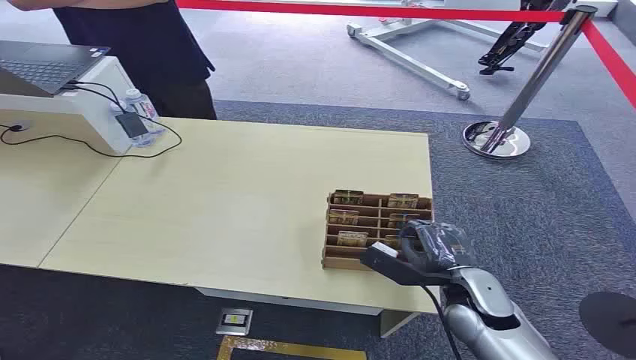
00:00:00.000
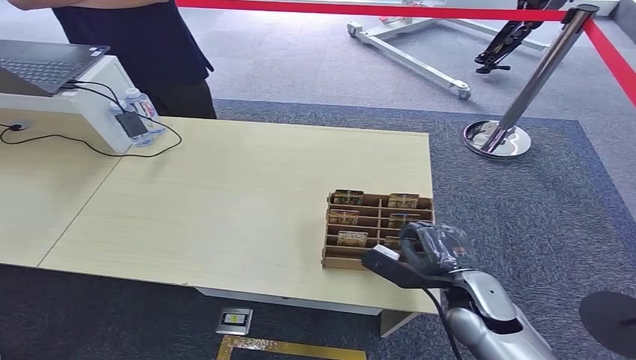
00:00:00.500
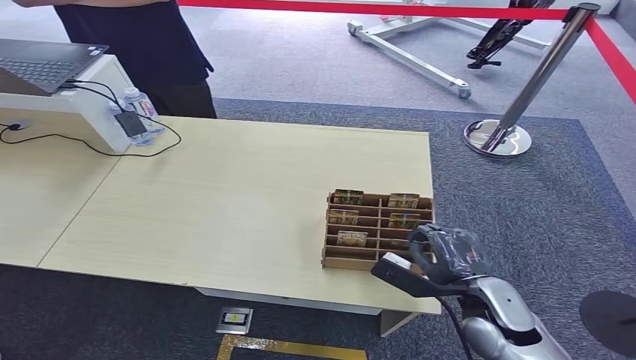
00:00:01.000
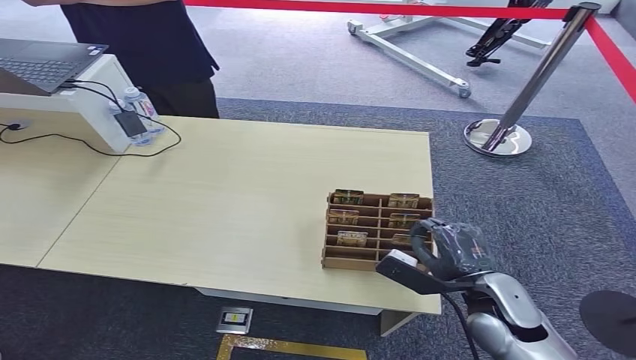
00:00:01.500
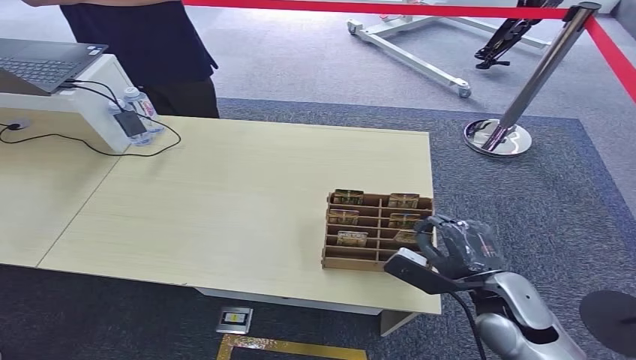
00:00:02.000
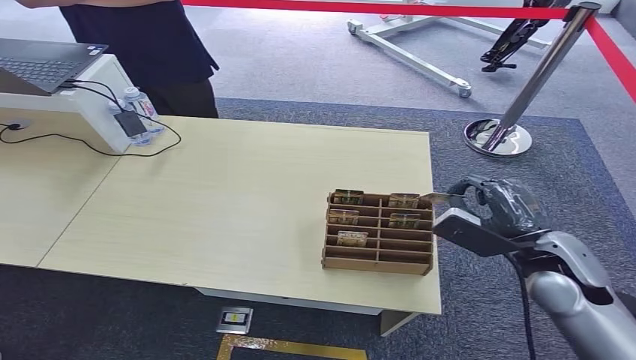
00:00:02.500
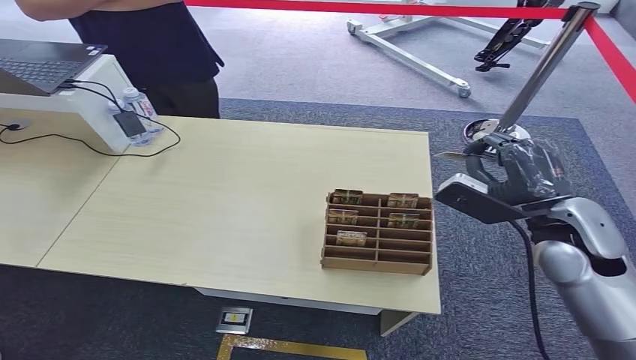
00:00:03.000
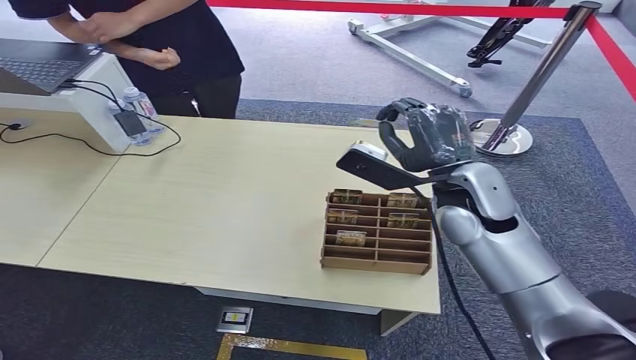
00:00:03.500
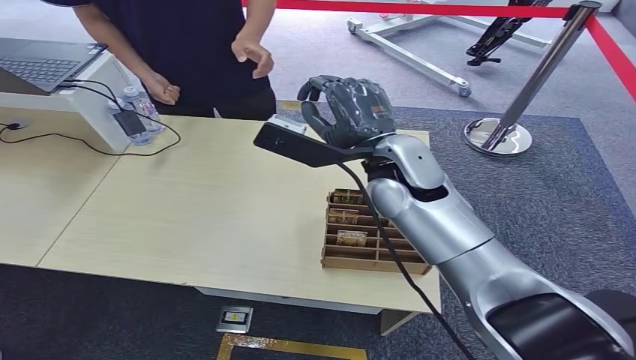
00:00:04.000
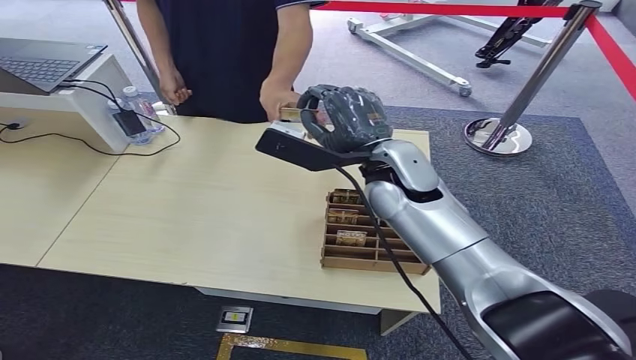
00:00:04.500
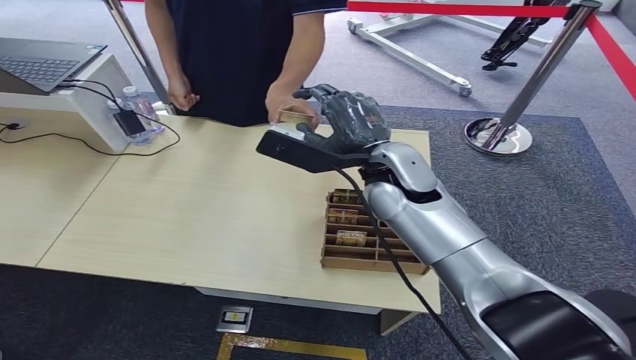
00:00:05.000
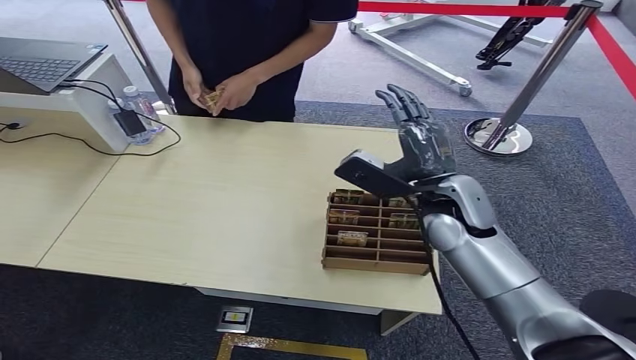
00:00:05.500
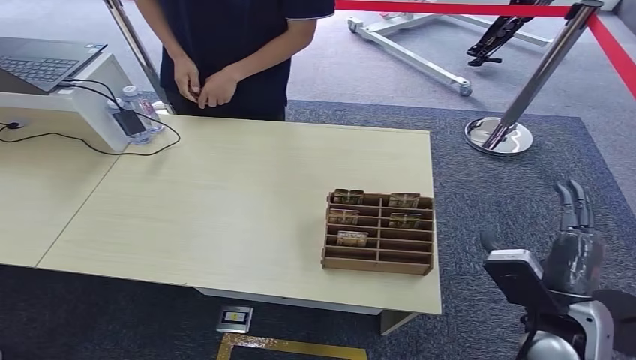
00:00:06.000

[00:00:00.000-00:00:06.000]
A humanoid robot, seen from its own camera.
Step, 00:00:00.000 to 00:00:02.500: Pick up the key card from the card box.
Step, 00:00:03.500 to 00:00:06.000: Hand the key card to the target.
